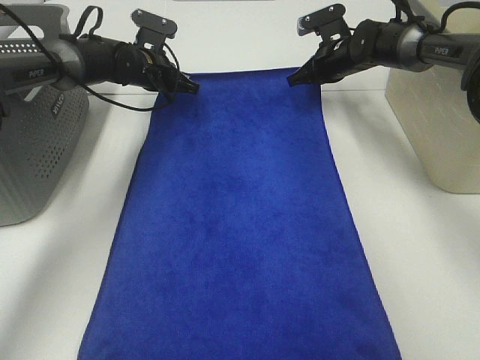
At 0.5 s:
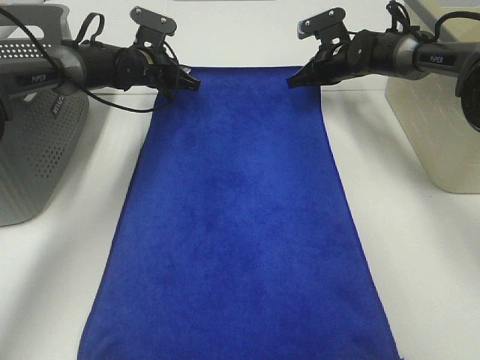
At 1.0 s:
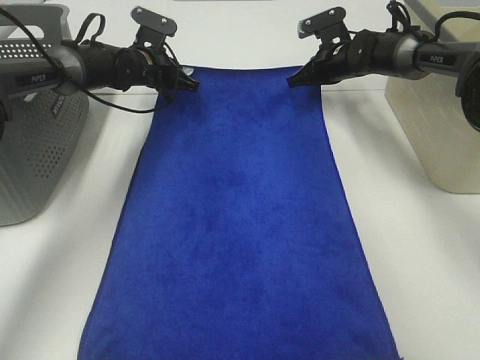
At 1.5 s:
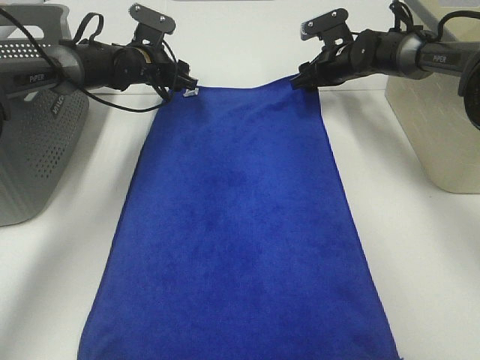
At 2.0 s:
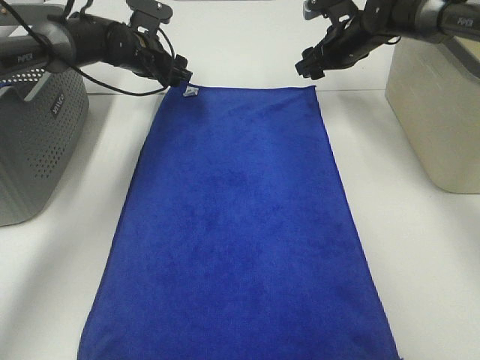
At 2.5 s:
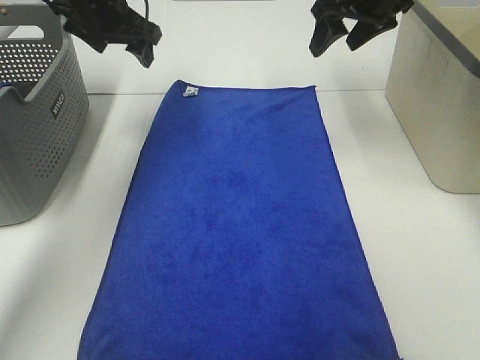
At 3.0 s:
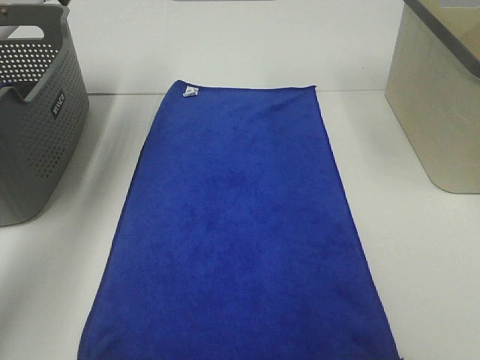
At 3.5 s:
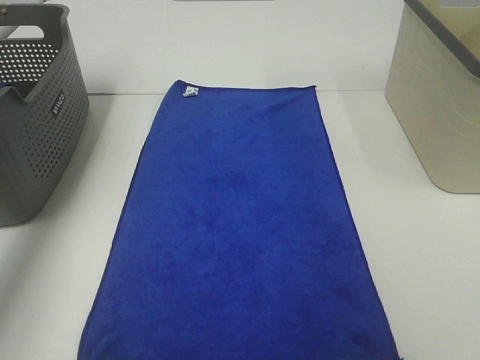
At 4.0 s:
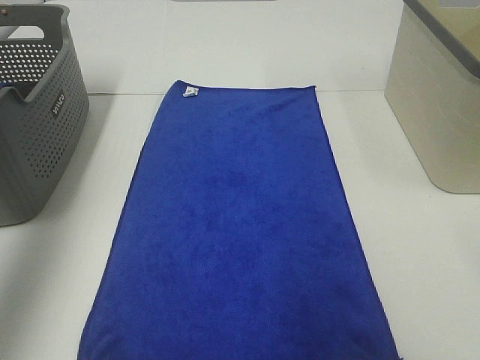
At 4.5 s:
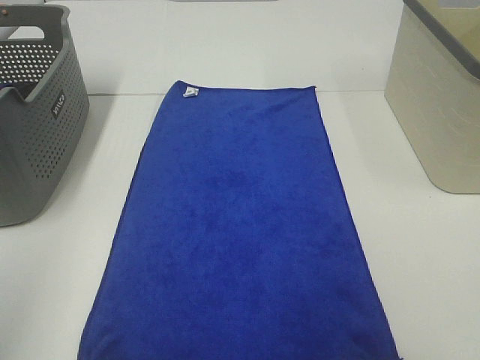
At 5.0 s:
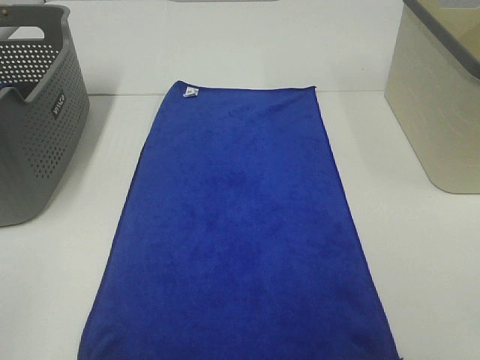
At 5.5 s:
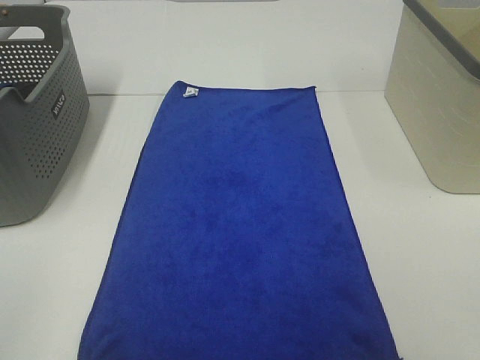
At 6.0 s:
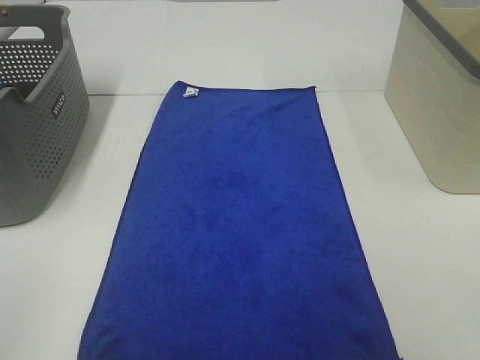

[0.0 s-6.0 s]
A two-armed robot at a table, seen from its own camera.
Task of the whole recording: Remove the towel and place it.
0.0 to 2.0 s: The right gripper goes some 5 cm upward, and opens. The left gripper opens up.
2.0 to 4.0 s: The left gripper moves backward, upward and to the left, approximately 50 cm, while the right gripper travels backward and upward by approximately 40 cm.
4.0 to 6.0 s: The left gripper travels backward and downward by approximately 30 cm.

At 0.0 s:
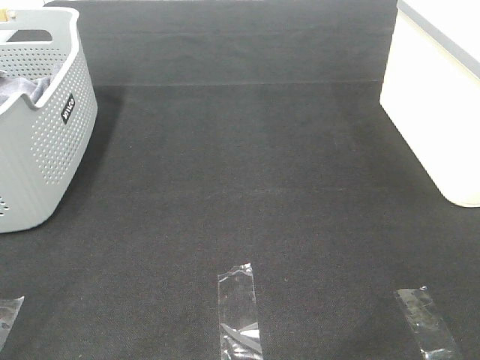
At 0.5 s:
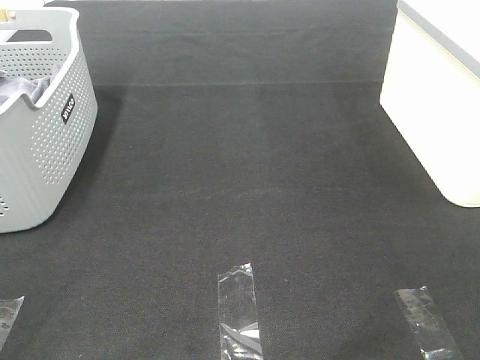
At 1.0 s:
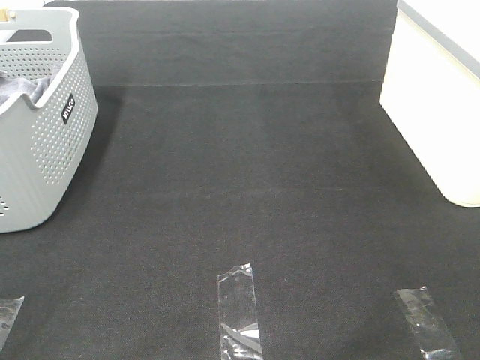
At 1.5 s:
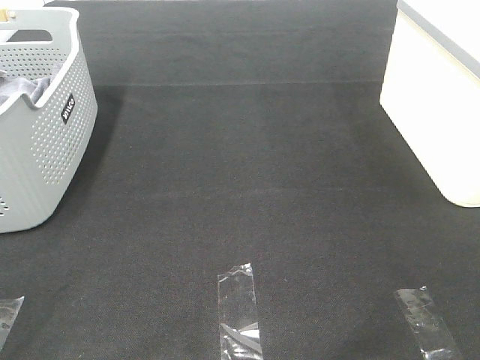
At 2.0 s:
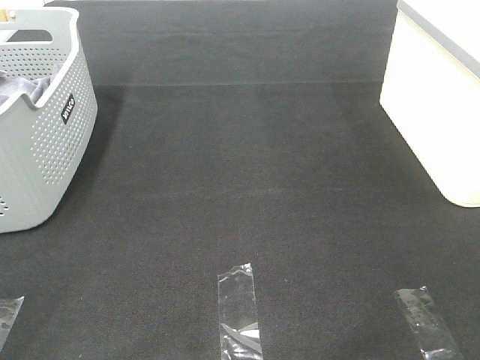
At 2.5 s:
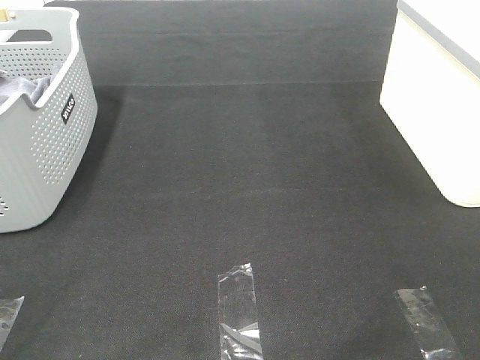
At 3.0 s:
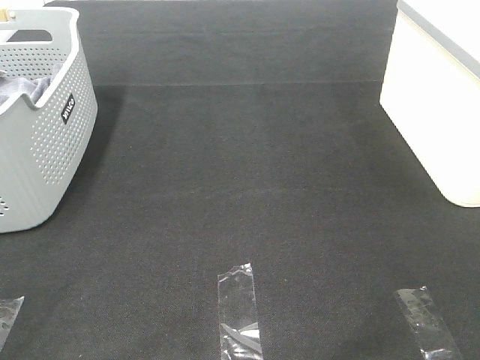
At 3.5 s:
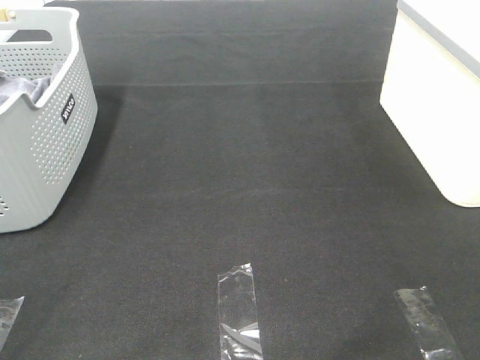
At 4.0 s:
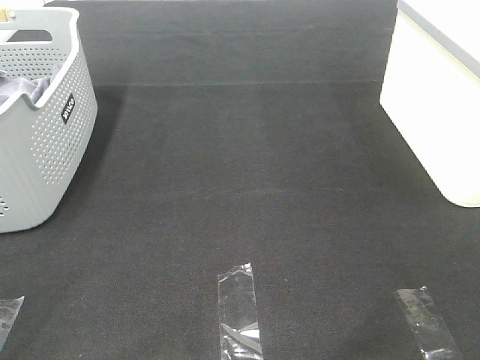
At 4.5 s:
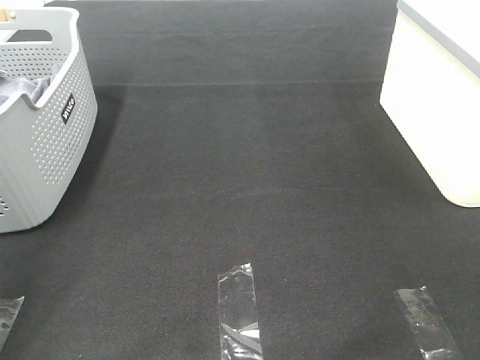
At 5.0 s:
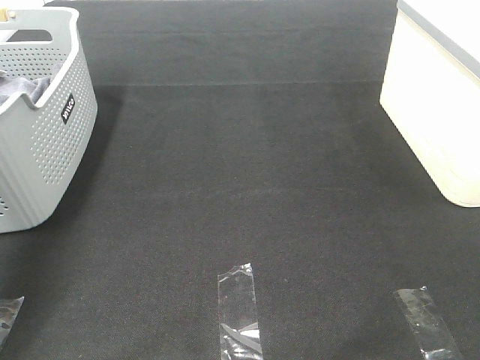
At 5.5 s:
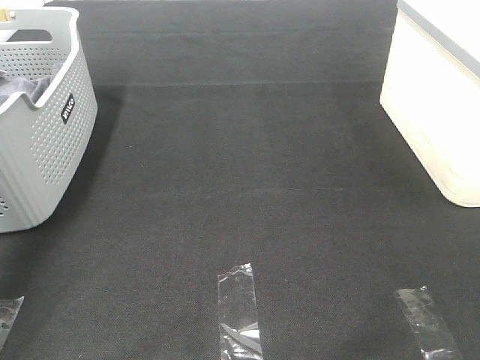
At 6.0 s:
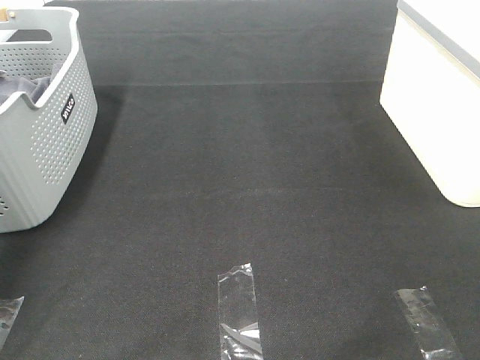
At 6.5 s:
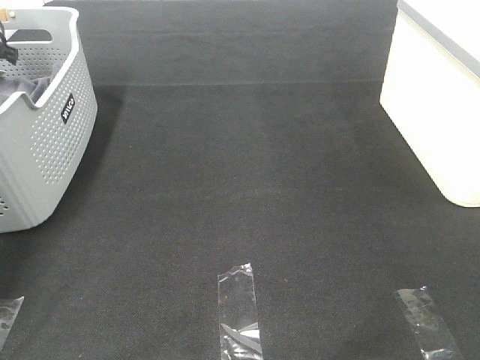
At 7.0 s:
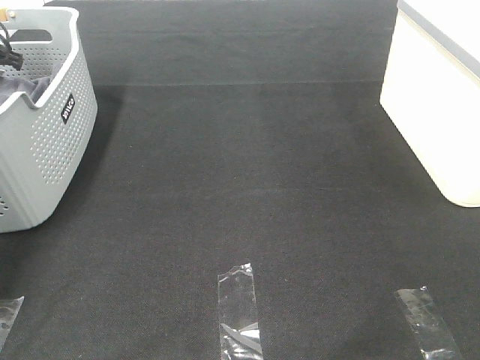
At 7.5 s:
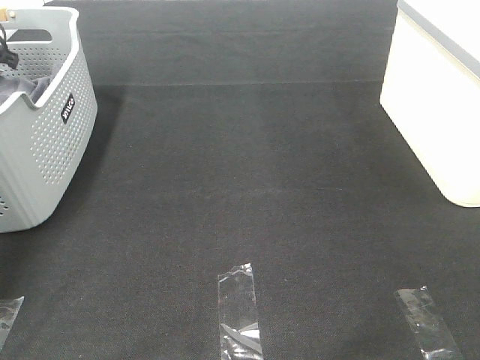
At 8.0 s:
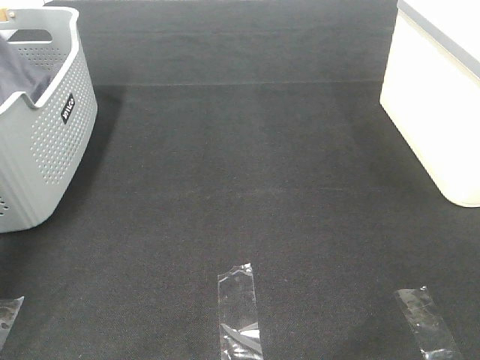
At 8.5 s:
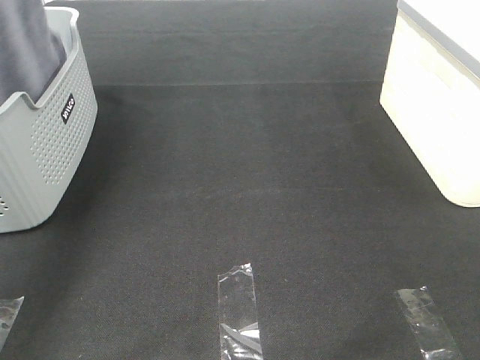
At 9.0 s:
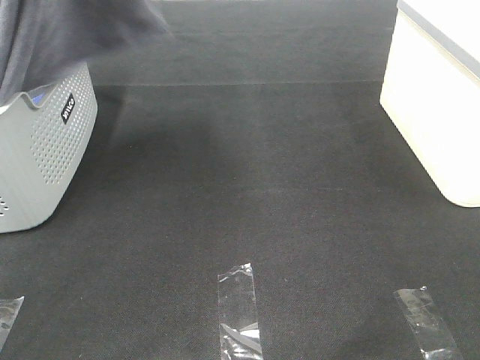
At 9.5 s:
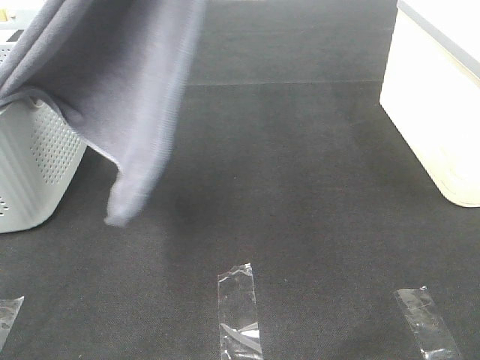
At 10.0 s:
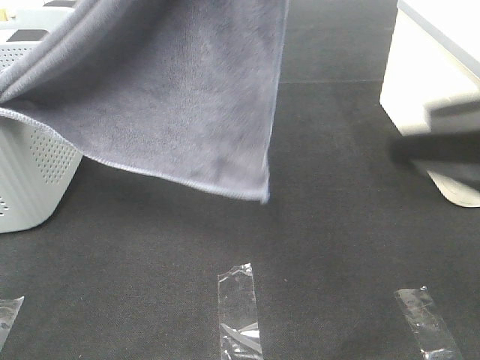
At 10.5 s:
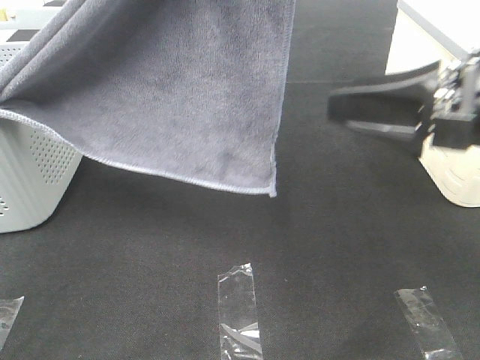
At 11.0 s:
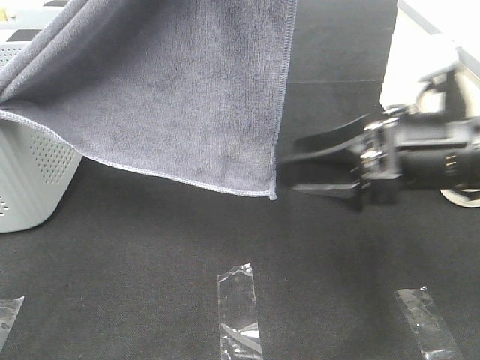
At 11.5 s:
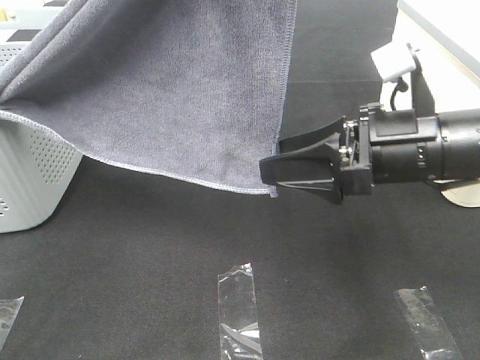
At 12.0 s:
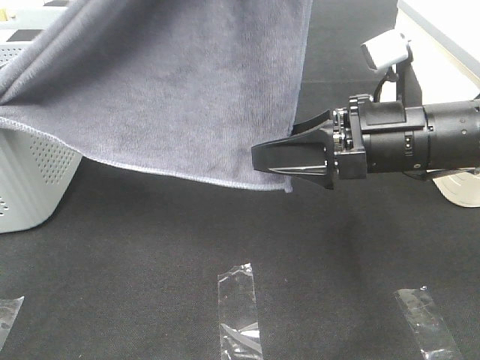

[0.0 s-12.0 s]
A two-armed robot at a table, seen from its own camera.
Task of the whole recording: Remove the towel and place it.
0.0 to 4.0 s: Both grippers stay about where they are.
4.0 to 6.0 s: The left gripper goes about 50 cm forward.
6.0 to 8.0 s: The left gripper moves upward, approximately 5 cm, and closes up.
8.0 to 10.0 s: The right gripper is displaced forward by roughly 15 cm. Meanwhile the left gripper is displaced to the right, backward and upward by approximately 50 cm.
10.0 to 12.0 s: The right gripper travels forward, downward and to the left by roughly 20 cm.

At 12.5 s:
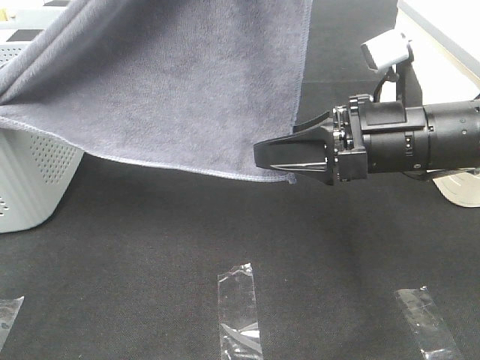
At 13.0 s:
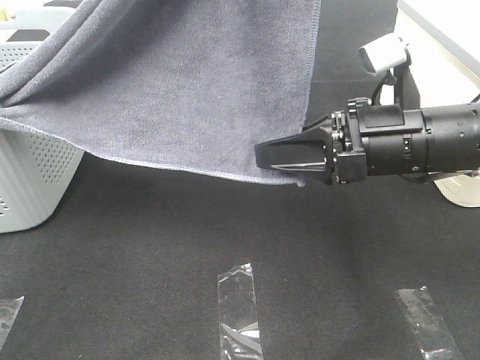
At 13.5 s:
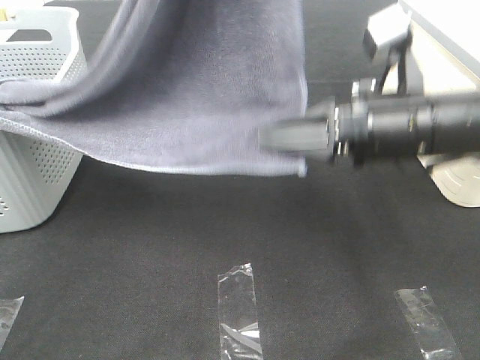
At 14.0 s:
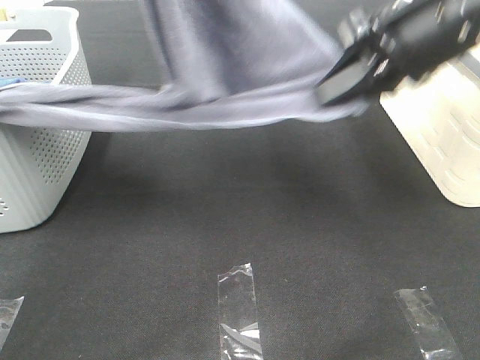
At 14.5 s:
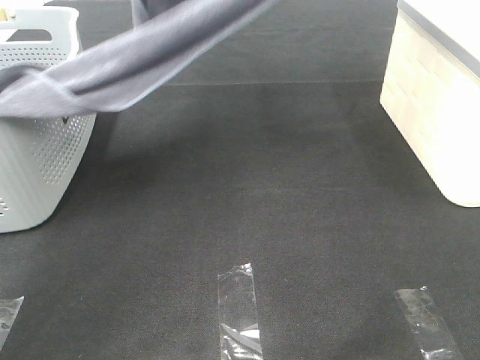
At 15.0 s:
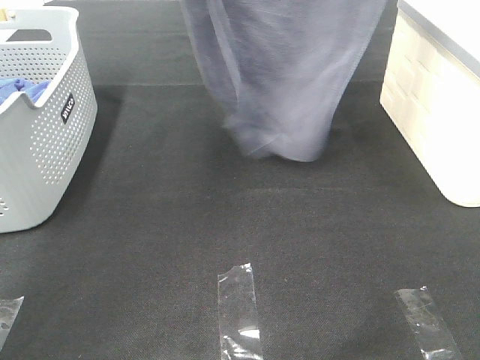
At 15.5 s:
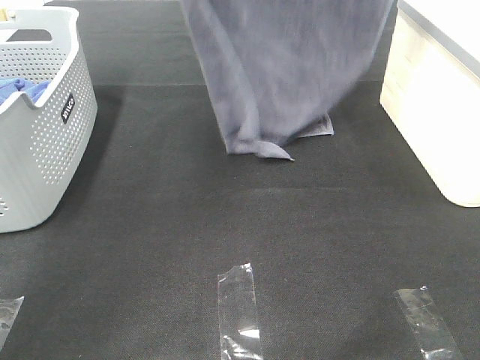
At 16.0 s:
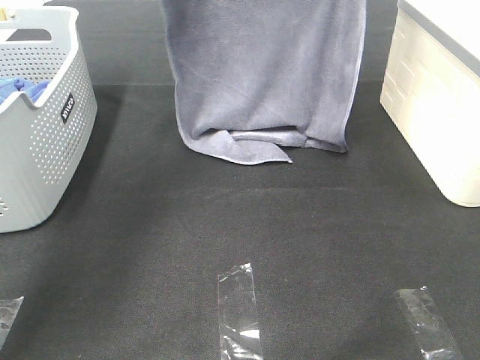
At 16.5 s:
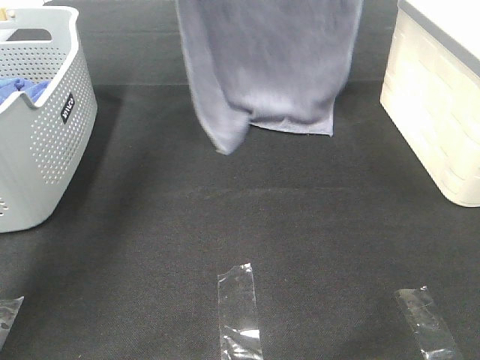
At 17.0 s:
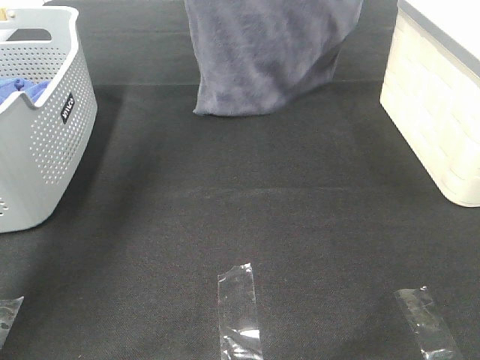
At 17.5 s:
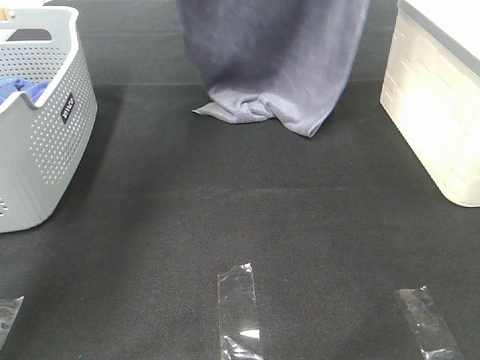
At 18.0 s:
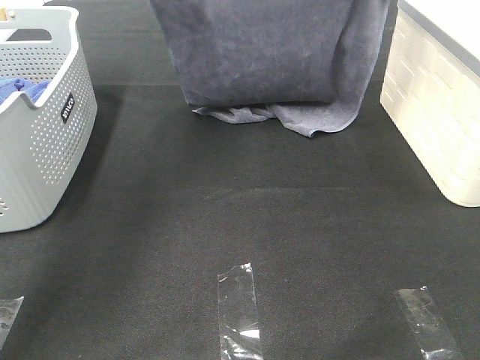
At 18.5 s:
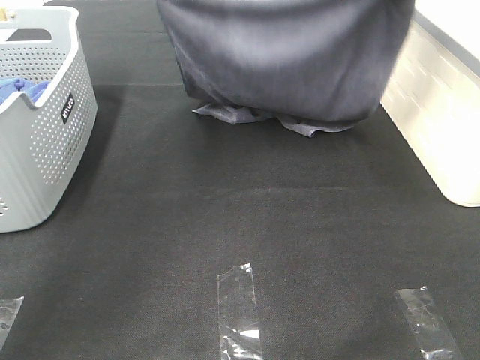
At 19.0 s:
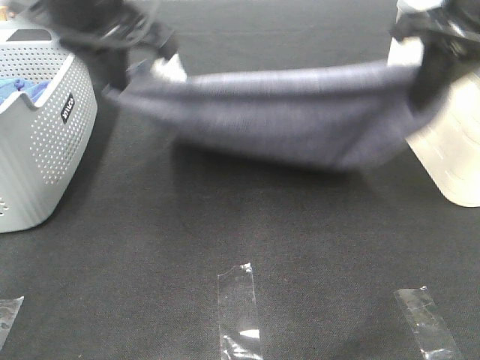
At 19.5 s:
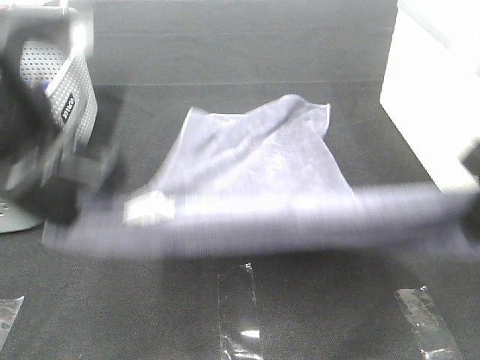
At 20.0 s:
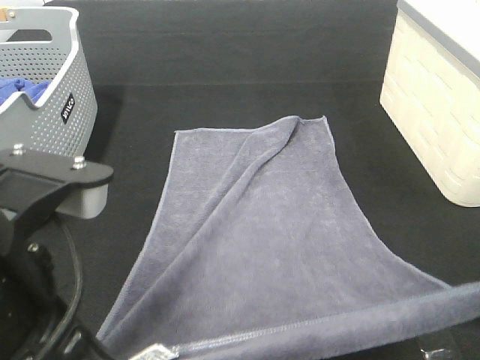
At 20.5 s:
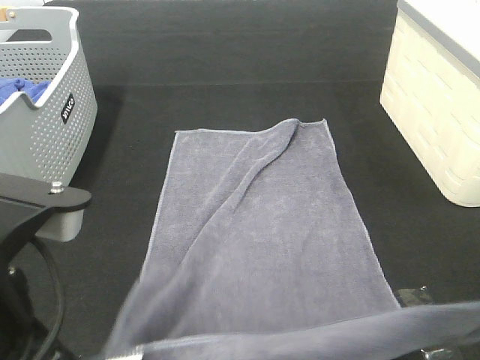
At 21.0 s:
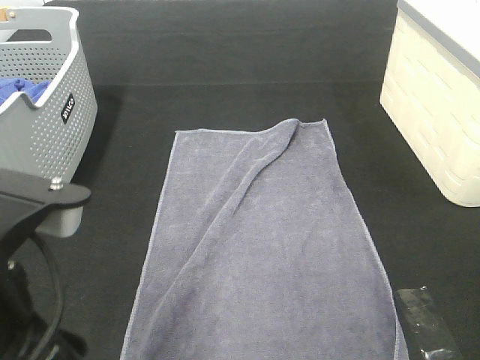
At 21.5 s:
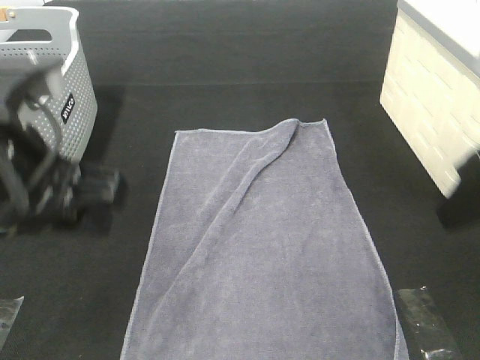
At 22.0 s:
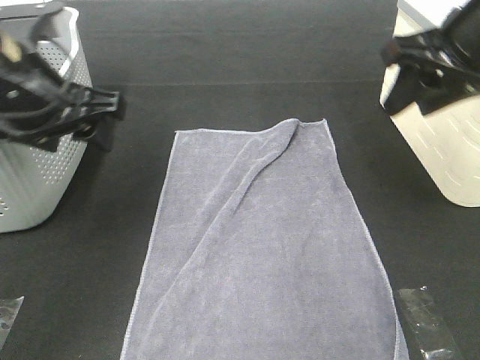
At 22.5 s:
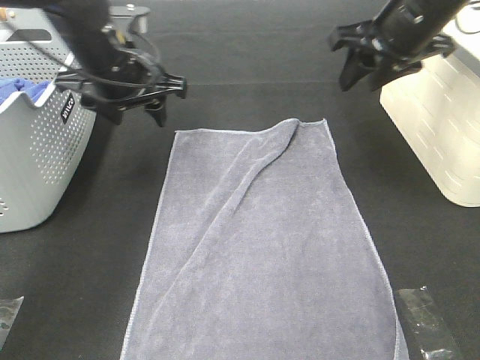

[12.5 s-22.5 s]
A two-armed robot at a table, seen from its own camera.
Task of the whole recording: Remove the towel and place it.
Step, 12.5 to 16.5 s: Left hand: spread the grey towel flat on the table.
Step, 12.5 to 16.5 s: Right hand: spread the grey towel flat on the table.
12.5 to 14.5 s: The right gripper travels upward and forward by approximately 30 cm, and closes; the left gripper moves forward and to the left, roughly 20 cm.
14.5 to 16.5 s: The right gripper moves up and down over some 15 cm, changing direction 2 times, while the left gripper swings up and down, some 20 cm each way, with 2 reversals.
16.5 to 18.5 s: The right gripper shifts about 15 cm downward and backward. The left gripper moves downward, backward and to the right, approximately 15 cm.
18.5 to 20.5 s: Both grippers move backward, roughly 30 cm. The right gripper opens up.
20.5 to 22.5 s: Both grippers move forward, some 30 cm. The left gripper opens.
